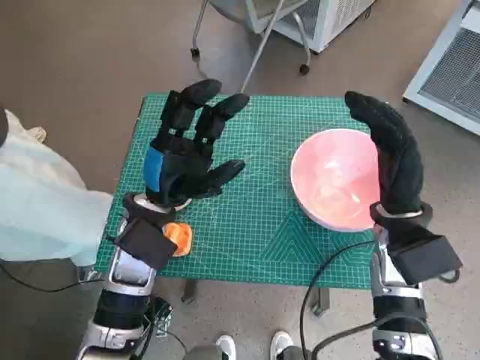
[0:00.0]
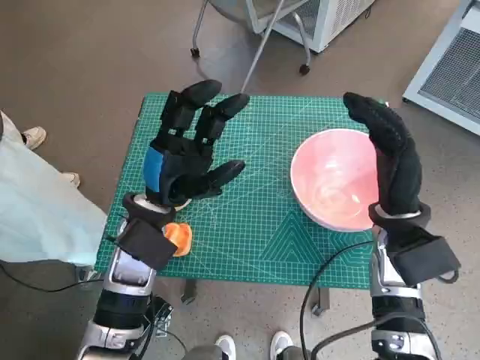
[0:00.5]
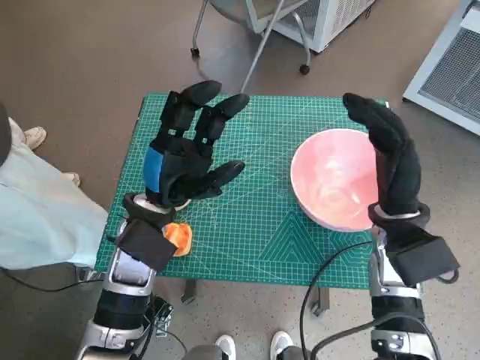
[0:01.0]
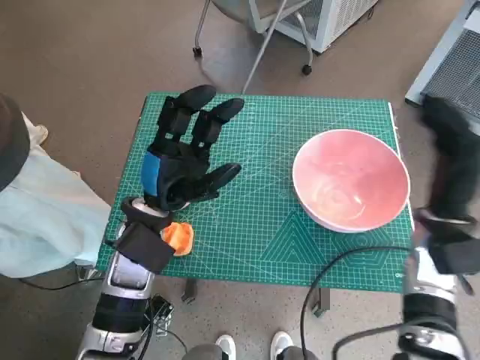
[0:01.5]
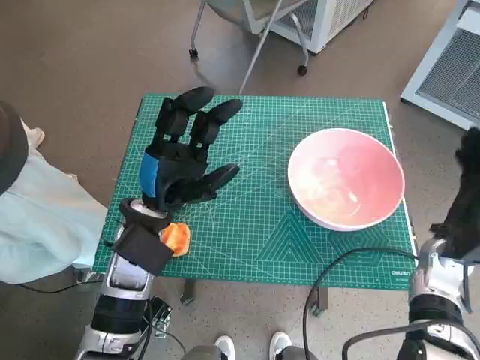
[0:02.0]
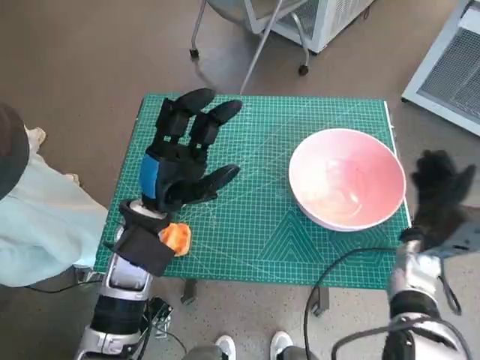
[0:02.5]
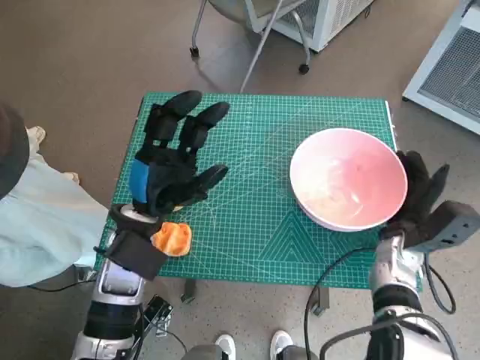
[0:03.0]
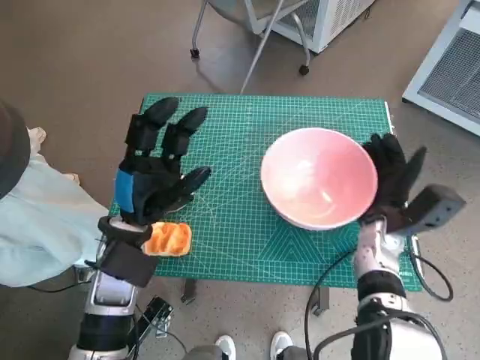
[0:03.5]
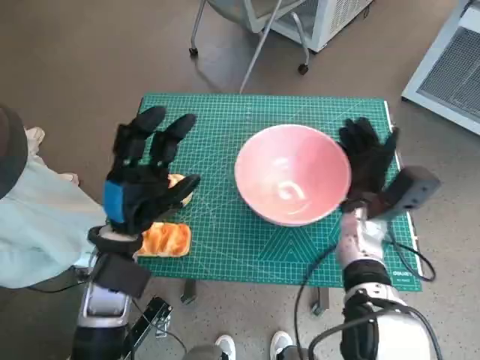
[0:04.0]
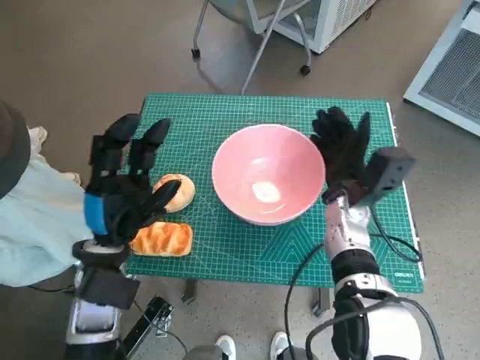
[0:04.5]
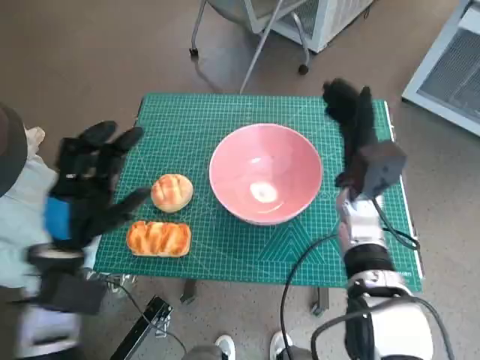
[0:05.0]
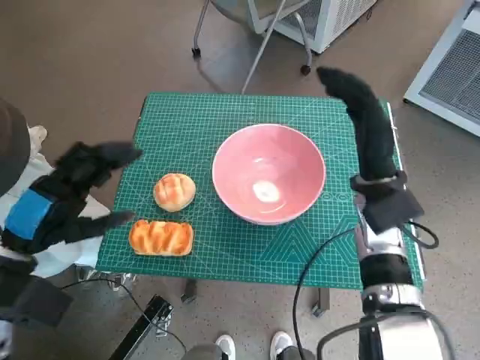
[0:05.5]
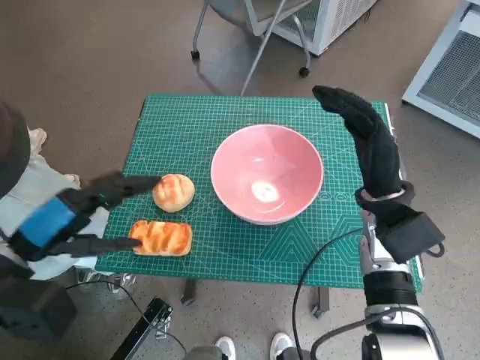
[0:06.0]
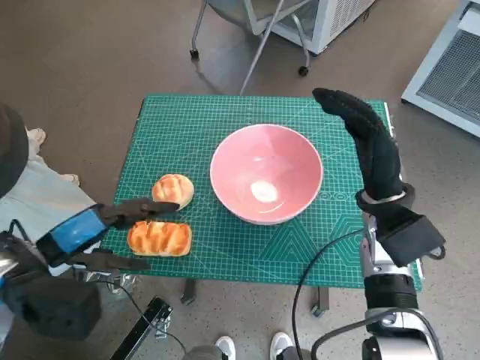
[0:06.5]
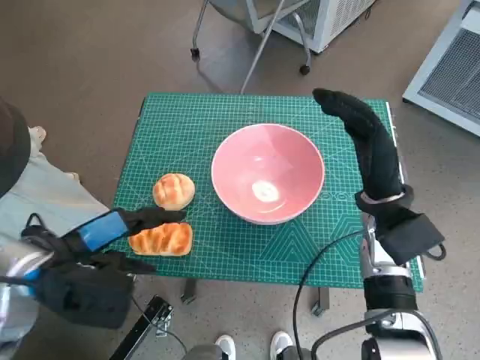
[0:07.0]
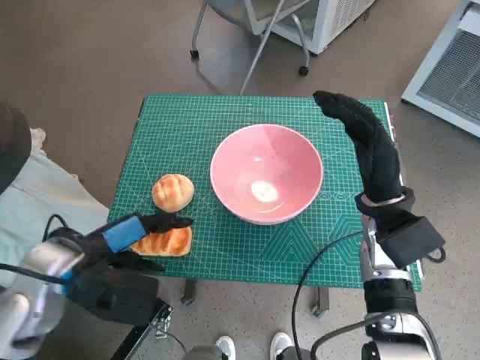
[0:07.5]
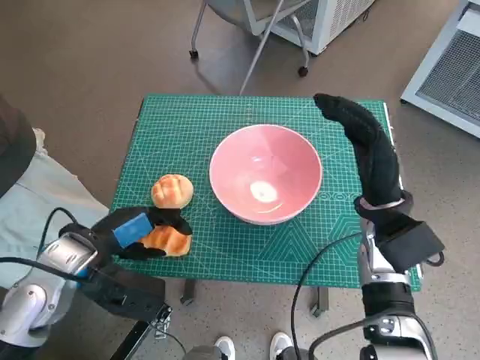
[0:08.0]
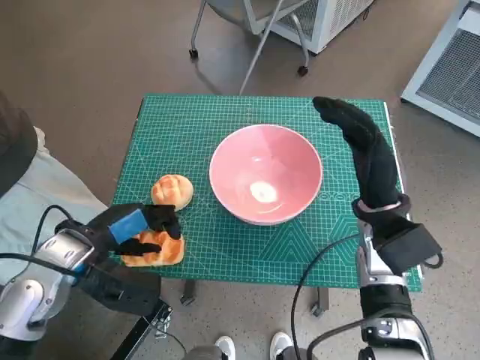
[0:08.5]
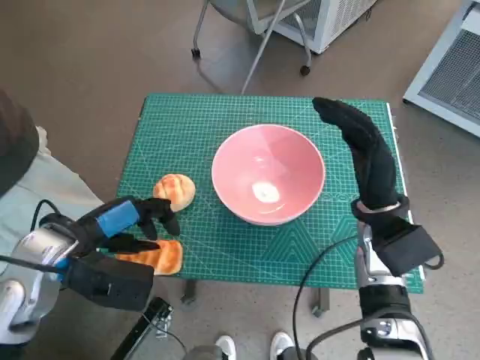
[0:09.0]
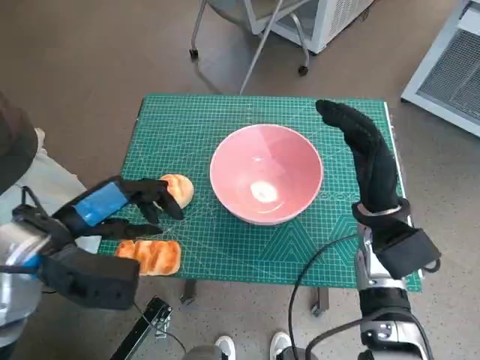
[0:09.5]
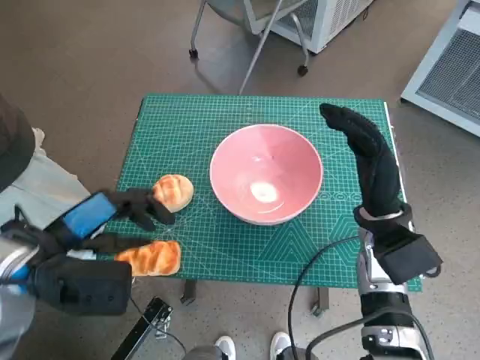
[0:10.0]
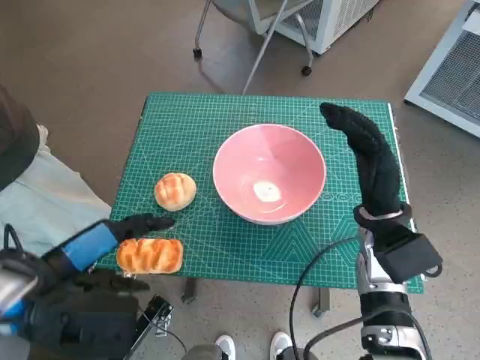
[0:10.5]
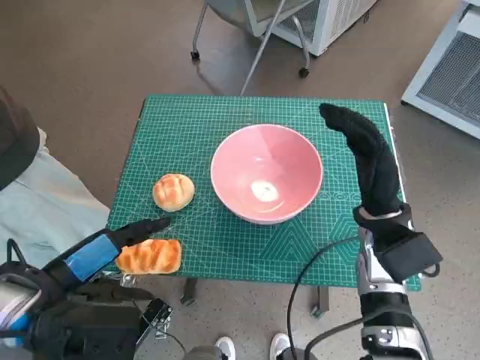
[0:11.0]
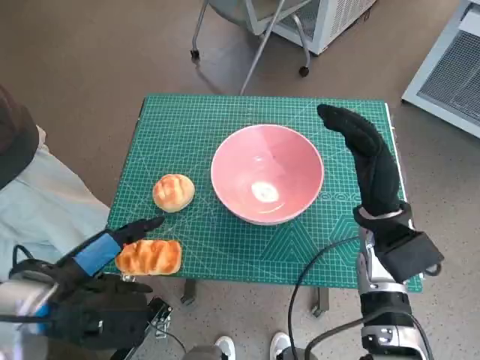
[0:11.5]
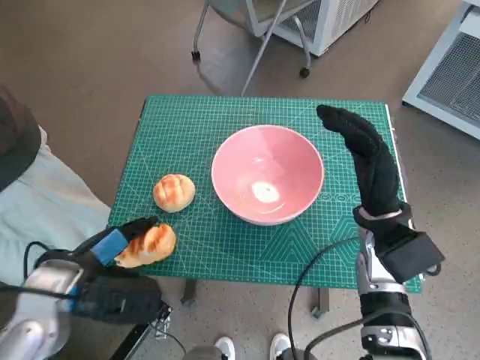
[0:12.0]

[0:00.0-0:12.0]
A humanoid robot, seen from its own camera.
Task of the whole recording: Push the bowl to the center of the table and put the bread into the bowl.
Step, 0:00.0 to 0:04.5: Move the pink bowl to the center of table with right hand.
0:02.0 to 0:04.0: The right hand goes some 10 cm to the left.
0:04.0 to 0:06.0: The left hand heads to the left, upward and backward, covering some 15 cm, while the right hand moves upward, roughly 5 cm.
0:06.0 to 0:08.0: The left hand heads to the right and downward, covering approximately 10 cm.
0:08.0 to 0:10.0: The left hand shifts roughly 5 cm upward.
0:10.0 to 0:12.0: The left hand goes roughly 5 cm downward.

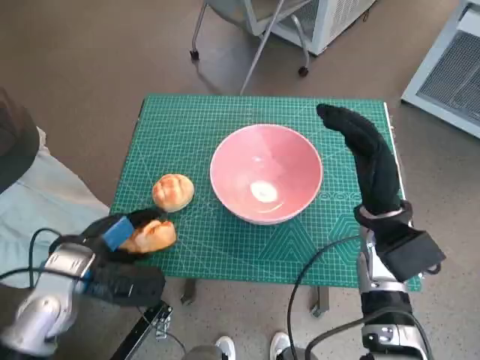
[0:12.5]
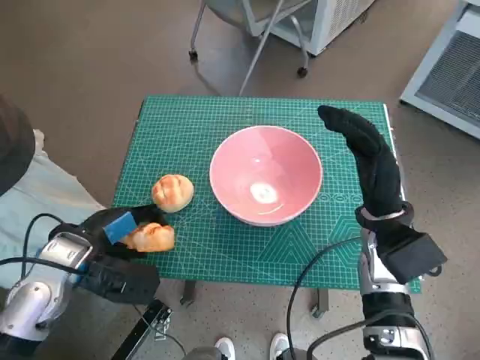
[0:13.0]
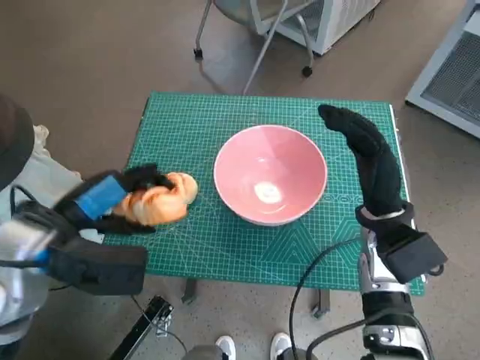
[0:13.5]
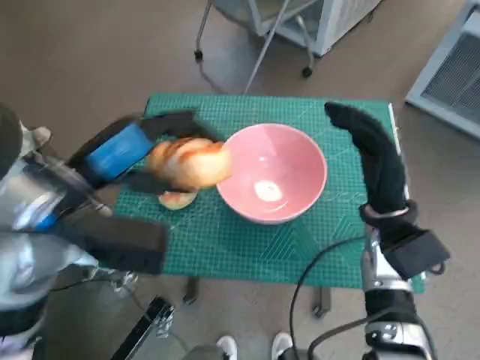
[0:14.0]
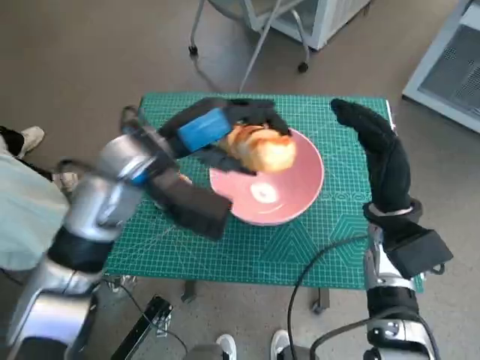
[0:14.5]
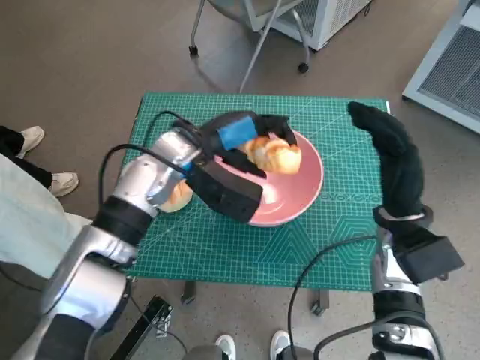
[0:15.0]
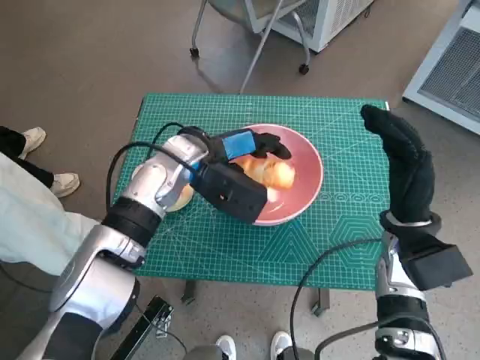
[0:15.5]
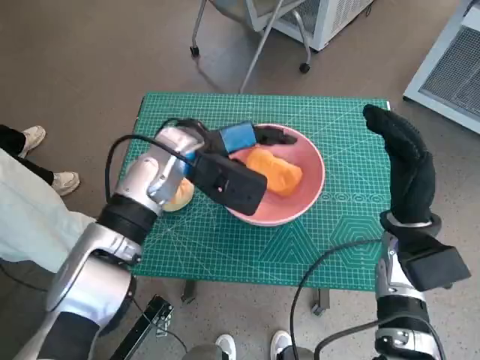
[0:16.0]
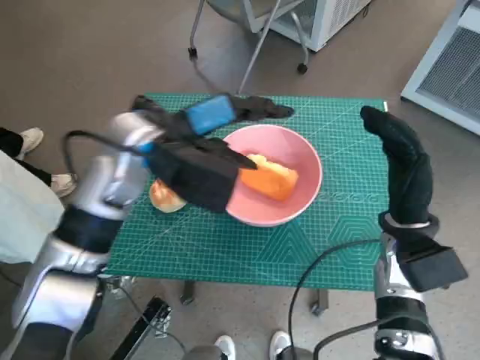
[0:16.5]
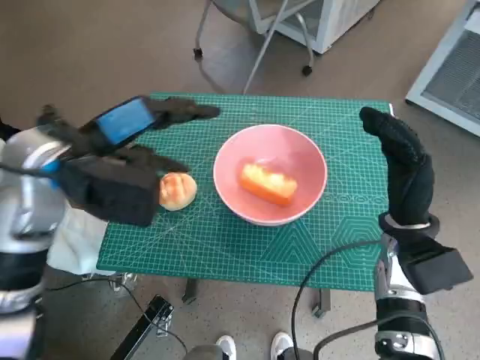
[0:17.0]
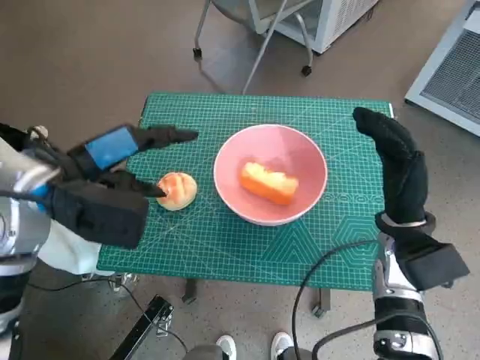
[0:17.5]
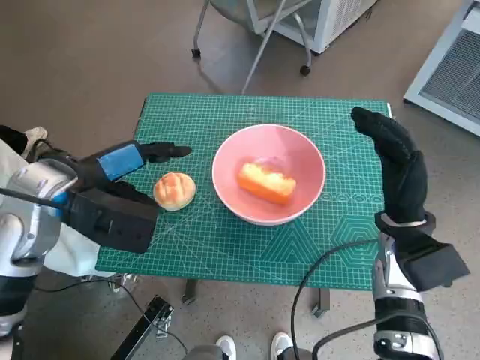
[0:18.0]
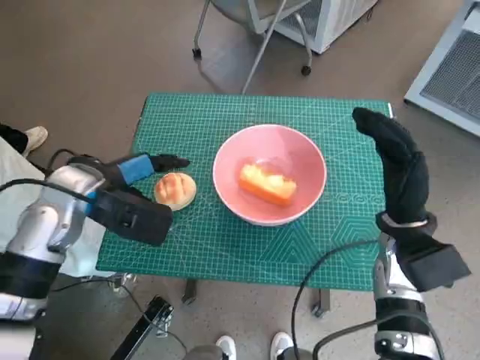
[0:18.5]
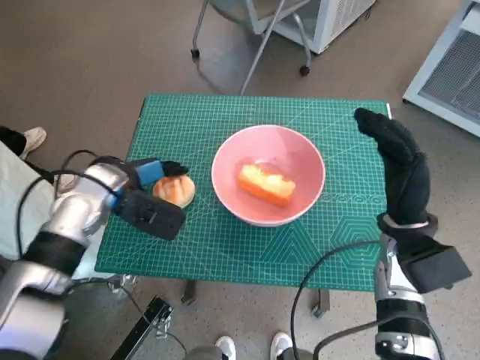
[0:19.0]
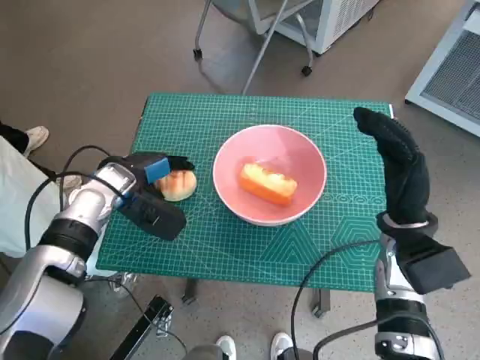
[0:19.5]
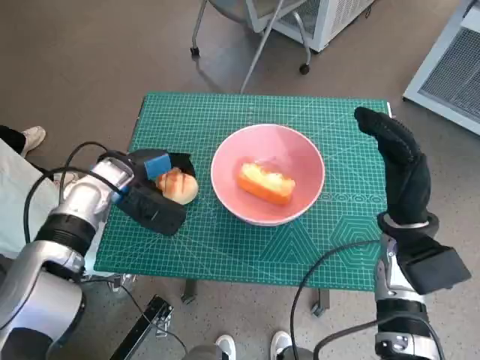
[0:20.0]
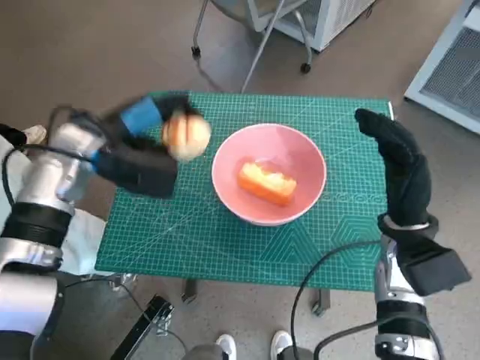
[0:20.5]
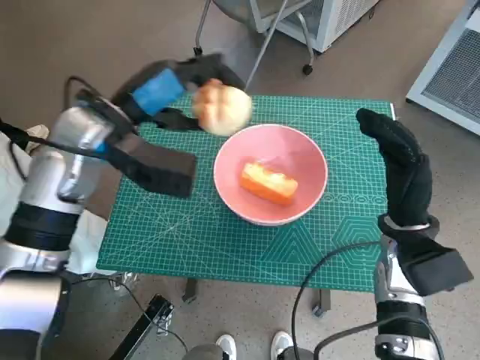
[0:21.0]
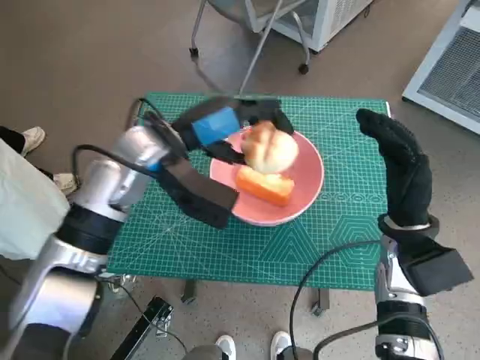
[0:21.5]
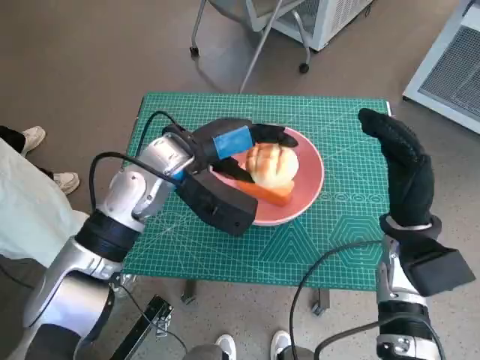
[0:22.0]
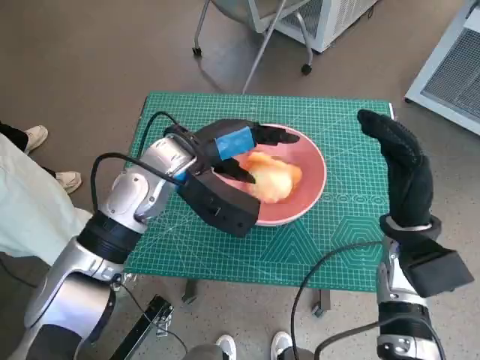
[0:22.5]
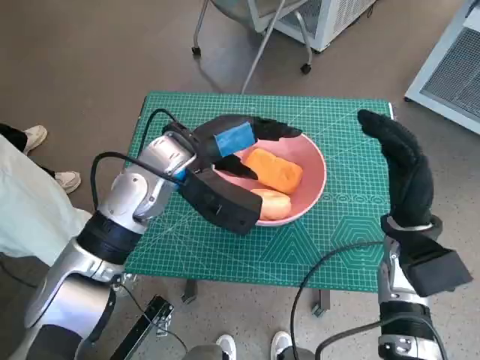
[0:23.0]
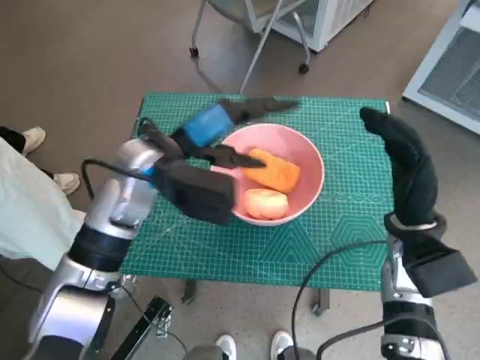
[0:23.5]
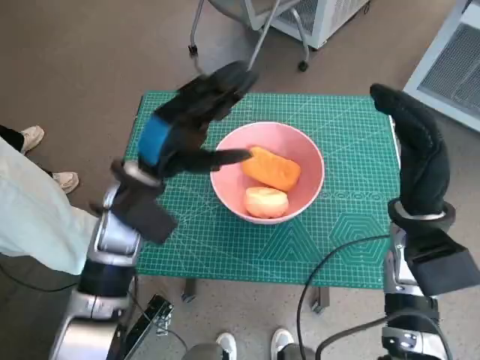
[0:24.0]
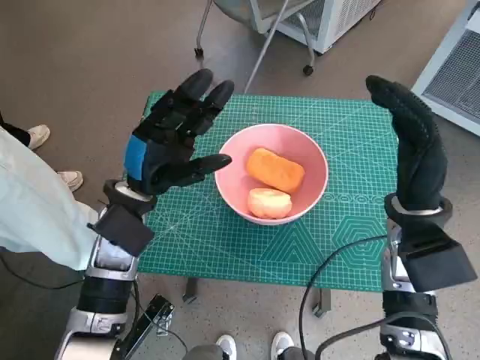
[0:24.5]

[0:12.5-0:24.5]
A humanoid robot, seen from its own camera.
Task of the whole recording: Push the bowl to the center of the table and put the bread into the bowl.
Step, 0:13.0 to 0:16.0: Place the long bread in pink bowl with left hand.
Step, 0:17.0 to 0:20.0: Grasp the round bread with left hand.
Step, 0:20.5 to 0:23.0: Place the round bread in pink bowl with left hand.
0:12.5 to 0:14.5: The left hand is displaced upward, to the right and forward by roughly 15 cm.
0:16.5 to 0:18.5: The left hand moves to the left and downward, about 10 cm.
0:20.5 to 0:22.5: The left hand heads to the right, covering about 10 cm.
0:22.5 to 0:24.5: The left hand goes approximately 10 cm to the left and downward.

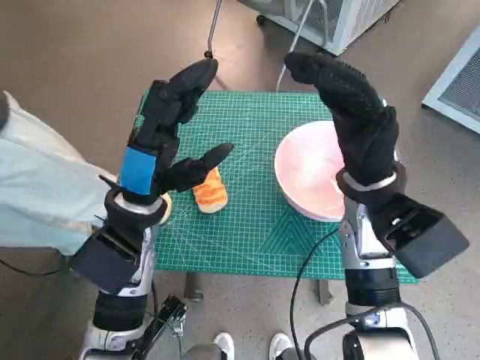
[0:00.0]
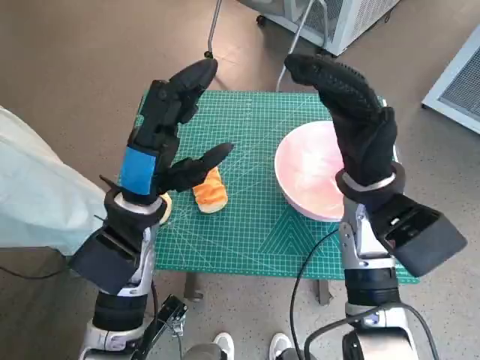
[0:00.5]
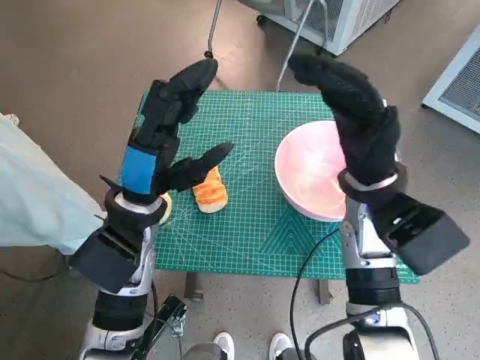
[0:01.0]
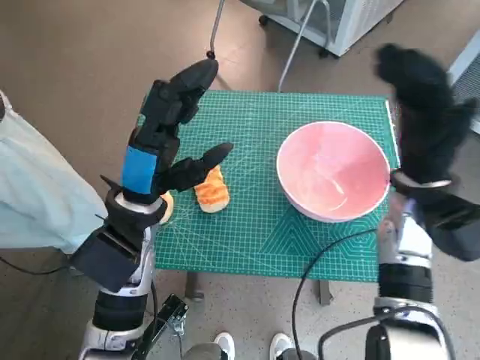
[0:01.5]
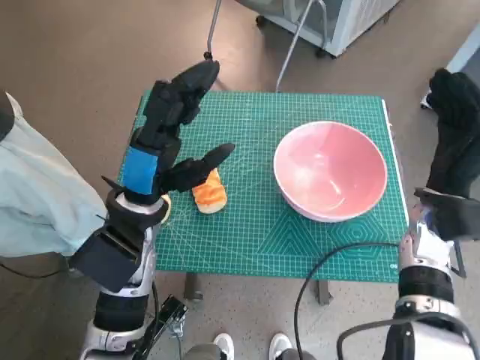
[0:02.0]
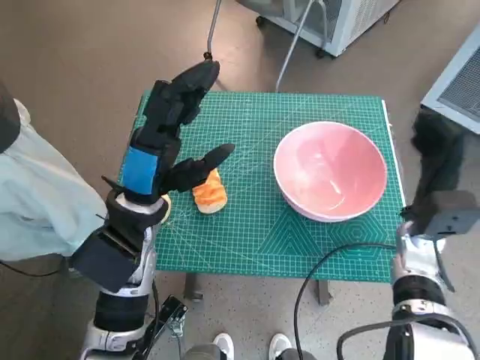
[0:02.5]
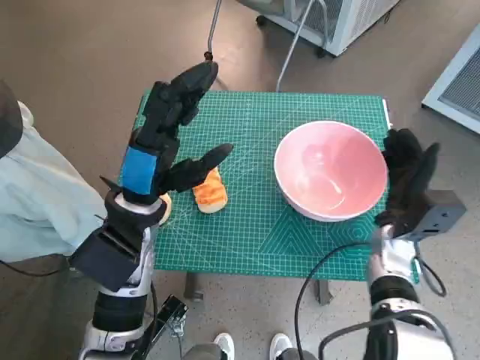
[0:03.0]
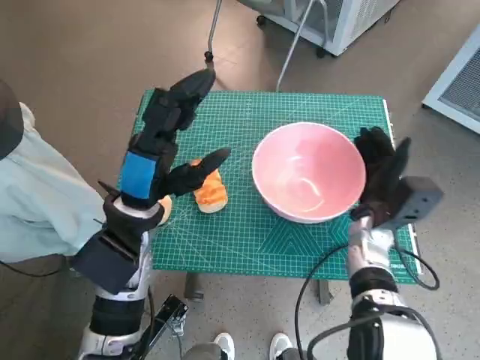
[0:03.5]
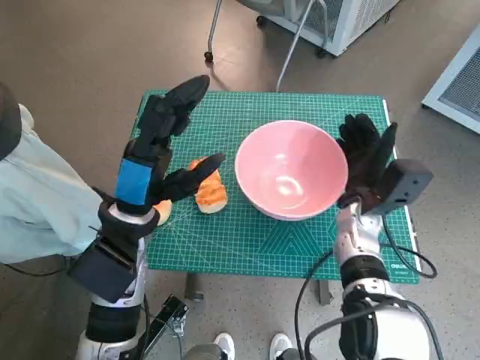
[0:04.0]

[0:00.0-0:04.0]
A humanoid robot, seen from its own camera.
Task of the whole recording: Push the bowl to the center of the table and put the bread into the bowl.
0:02.0 to 0:04.0: The right hand heads to the left and downward, covering some 10 cm.
